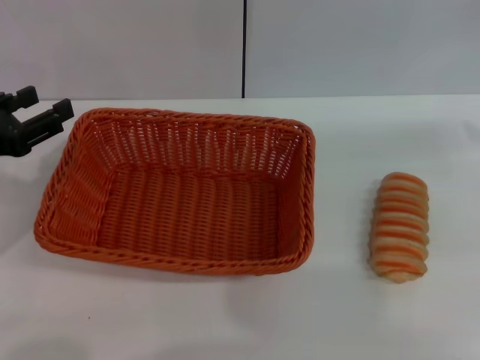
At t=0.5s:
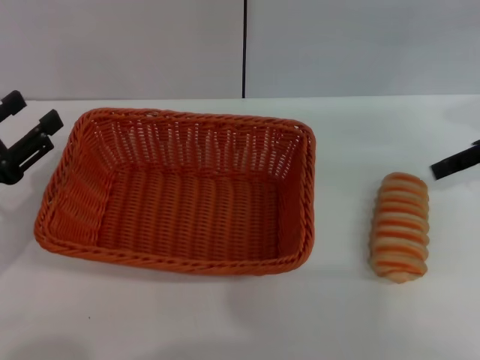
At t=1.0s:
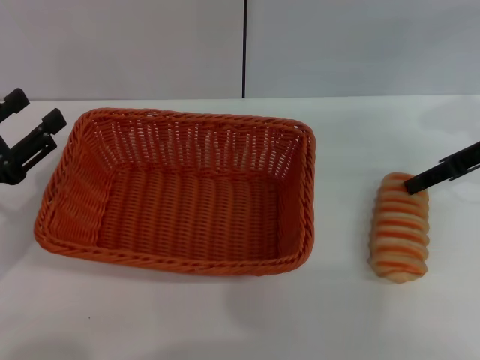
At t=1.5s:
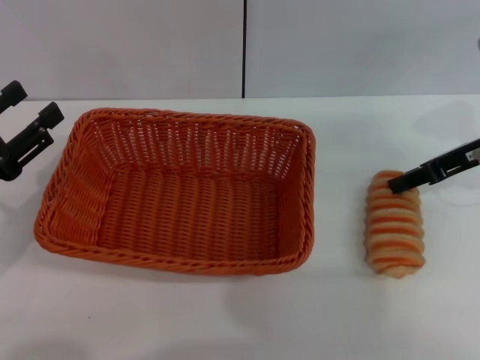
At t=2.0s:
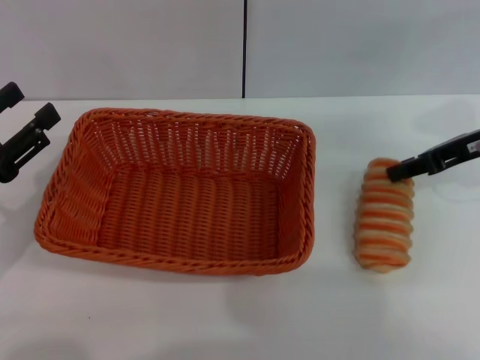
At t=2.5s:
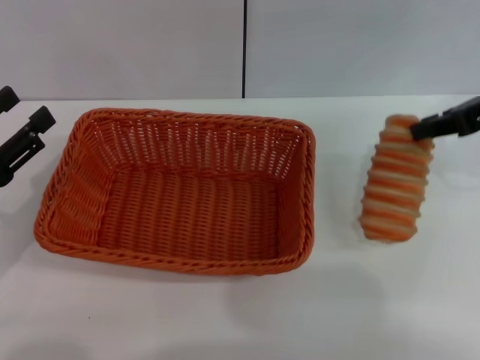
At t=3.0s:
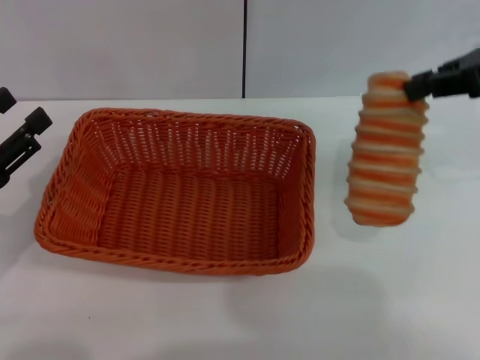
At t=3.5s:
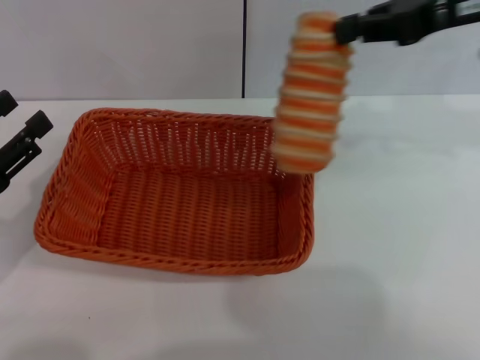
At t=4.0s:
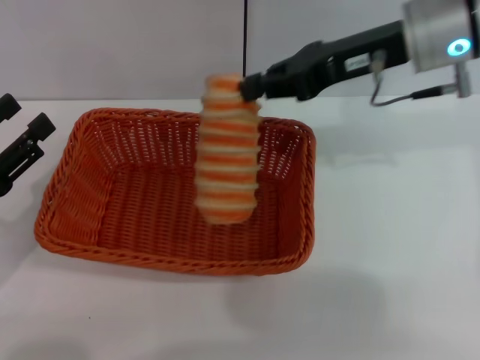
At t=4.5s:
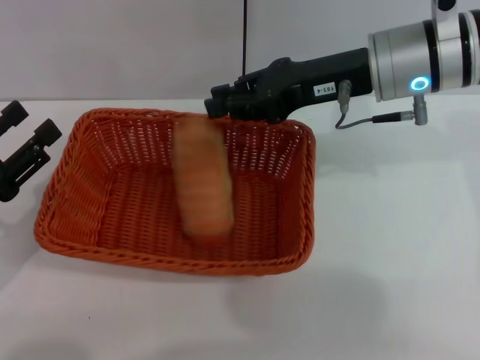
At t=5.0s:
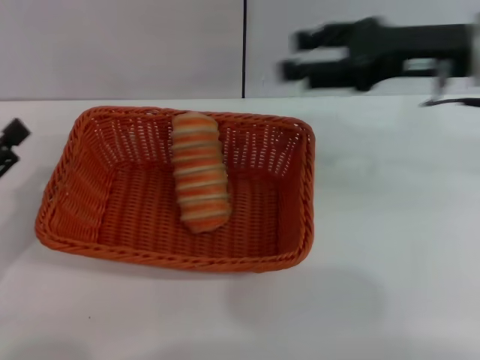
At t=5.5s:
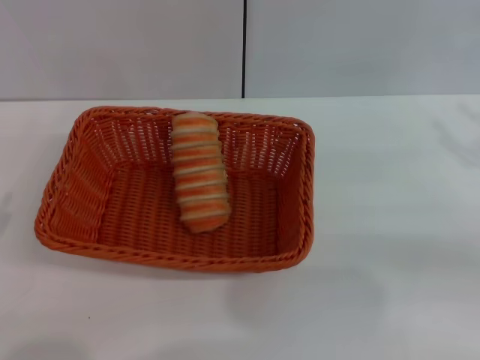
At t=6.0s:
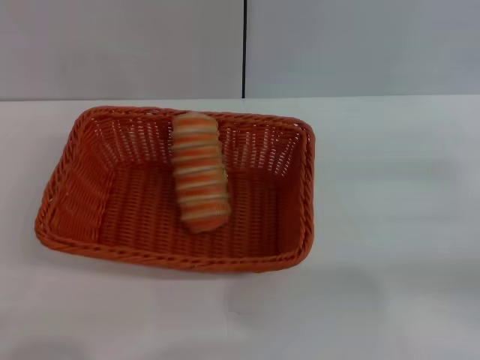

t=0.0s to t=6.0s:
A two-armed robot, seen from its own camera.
Step, t=0.0s to t=2.0s: Pick up the long bread with the right gripper.
Step, t=2.5s to t=4.5s: Place the long bread into the light basket with the right gripper.
t=0.0s to t=2.0s: The left gripper changes place by some 5 cm; the right gripper shifts roughly 10 cm to the left and downward, and closes its fingers.
t=2.0s to t=4.0s: The right gripper is displaced to the left and upward by roughly 15 cm, and closes up.
t=4.0s to t=6.0s: The left gripper travels backward by approximately 10 cm, while the right gripper moves to the right, backward and downward, roughly 30 cm, and opens.

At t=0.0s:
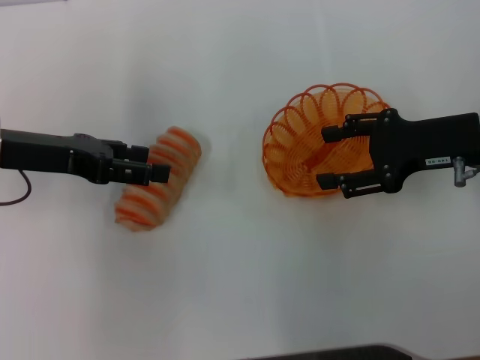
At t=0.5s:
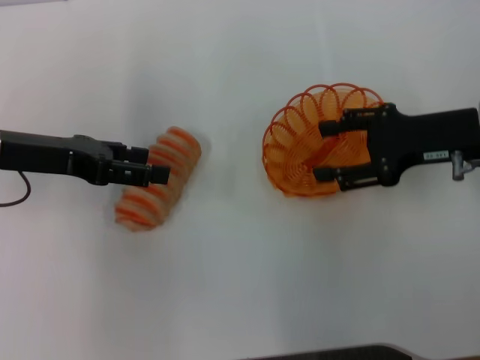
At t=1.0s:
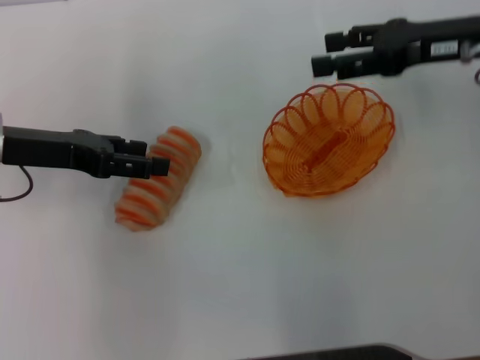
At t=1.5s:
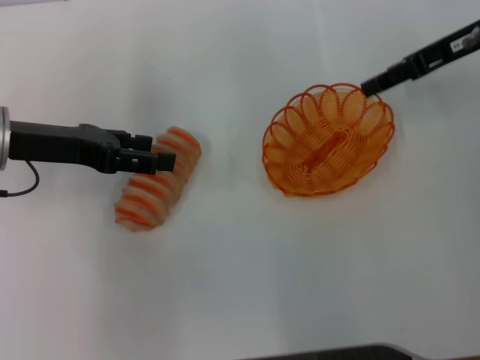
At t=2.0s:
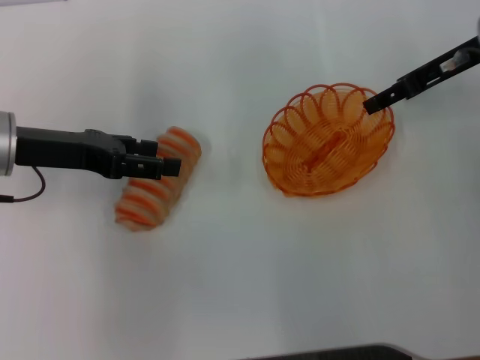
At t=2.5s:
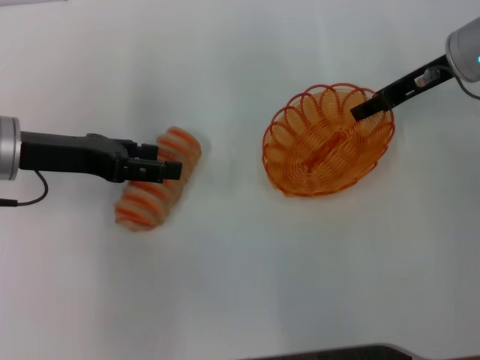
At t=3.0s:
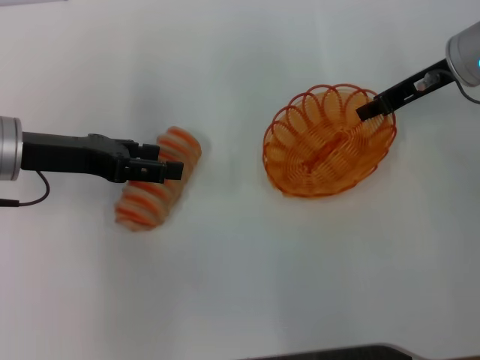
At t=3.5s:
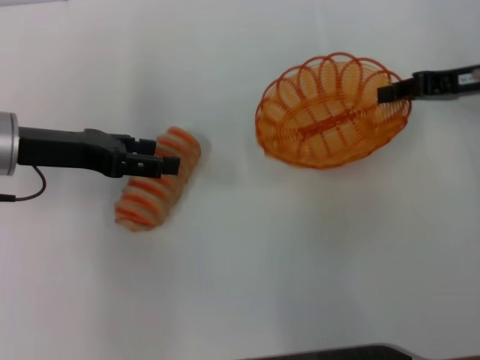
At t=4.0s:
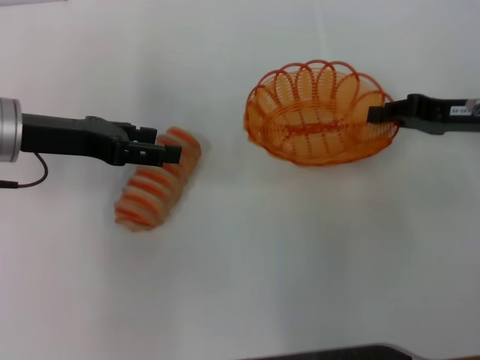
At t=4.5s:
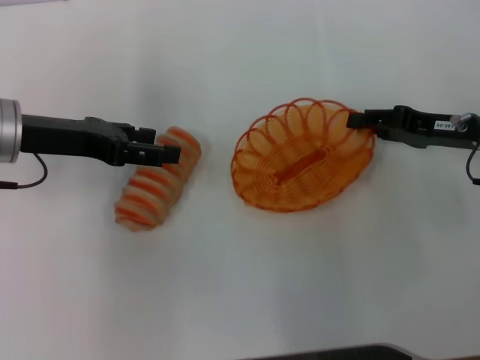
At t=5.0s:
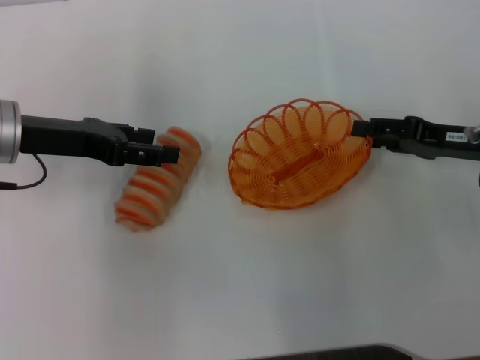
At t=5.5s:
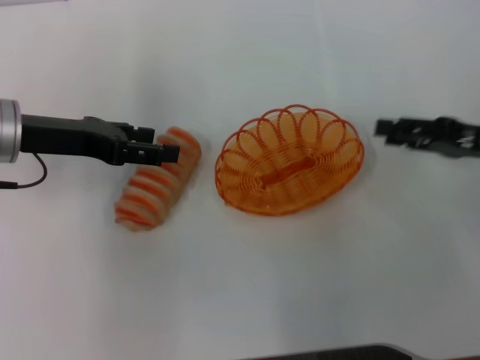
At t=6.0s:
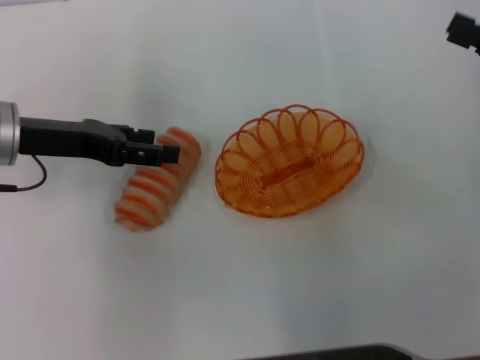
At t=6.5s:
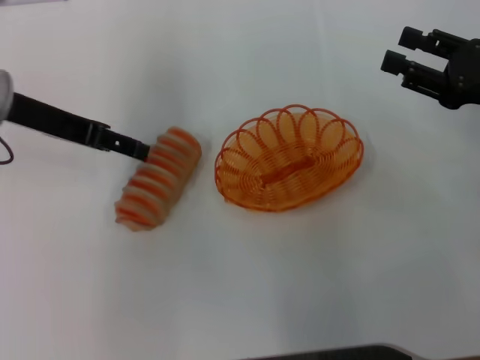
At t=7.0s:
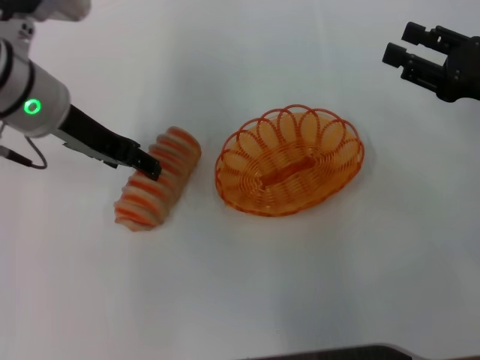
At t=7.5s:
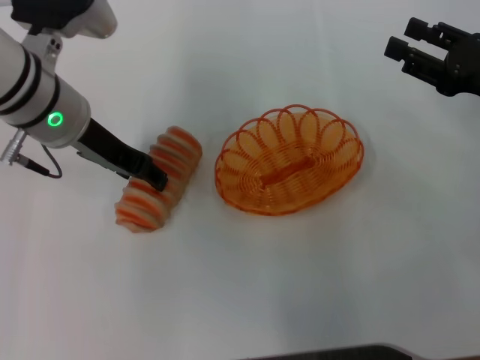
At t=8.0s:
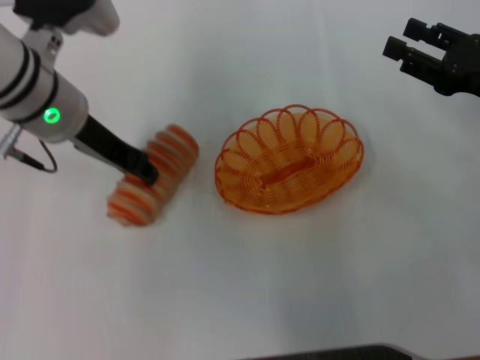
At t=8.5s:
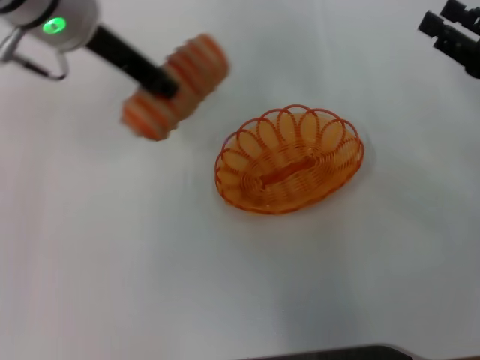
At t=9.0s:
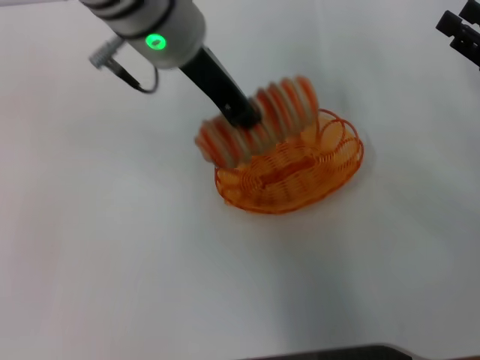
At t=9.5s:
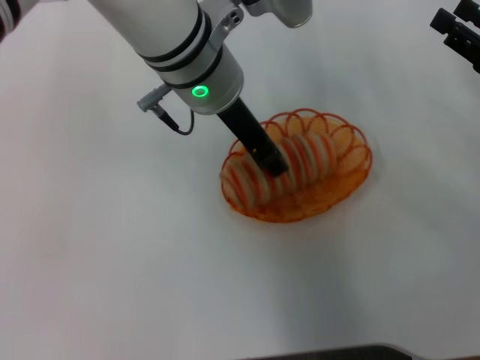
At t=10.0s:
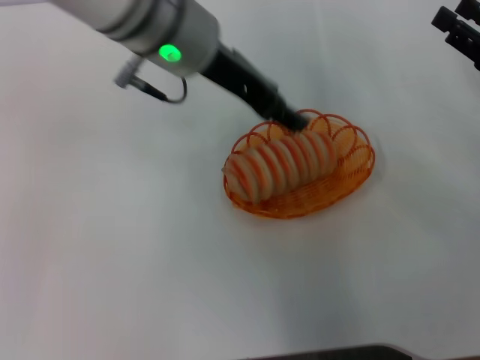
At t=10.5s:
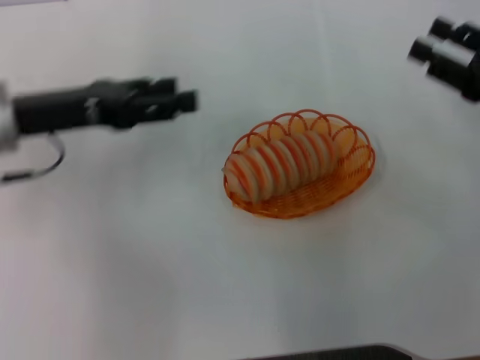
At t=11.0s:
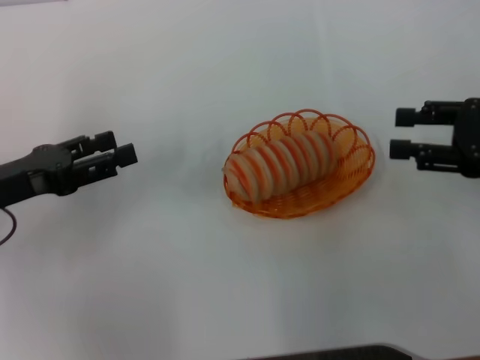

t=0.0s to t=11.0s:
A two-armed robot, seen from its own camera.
Step, t=0.0s to t=3.0s: Pick up the basket with the right gripper.
Step, t=3.5s to t=5.0s: Place the basket in the center of view with the right gripper.
Step, t=5.5s to t=8.0s: Pick up the long bread with the left gripper.
Step, t=8.5s to t=9.5s: Place the long bread into the basket with the left gripper.
t=0.0s to t=2.0s: The right gripper moves forward, some 10 cm.
t=2.0s to t=3.5s: The right gripper moves roughly 5 cm, and closes.
t=3.5s to t=5.5s: The right gripper heads backward, covering roughly 10 cm, and opens.
t=5.5s to t=7.5s: The left gripper shifts about 10 cm to the right.
t=7.5s to t=9.0s: The left gripper moves to the right and upward, approximately 15 cm, and closes.
t=9.0s to t=11.0s: The left gripper shifts approximately 30 cm to the left, downward and backward, and opens up.

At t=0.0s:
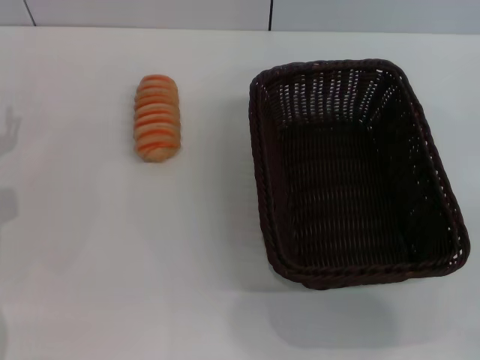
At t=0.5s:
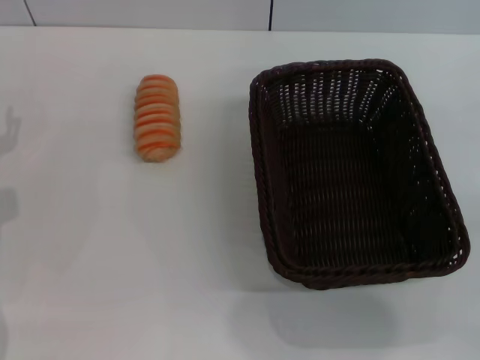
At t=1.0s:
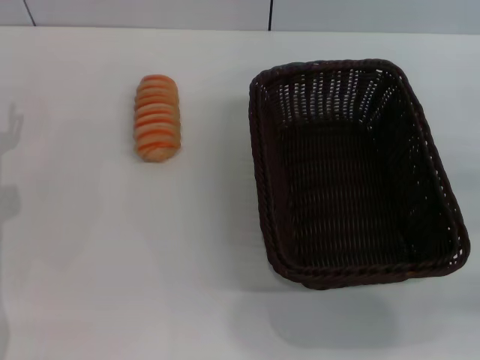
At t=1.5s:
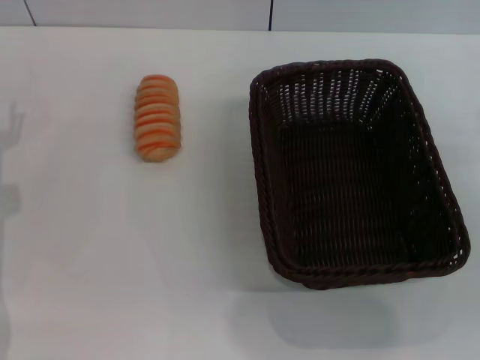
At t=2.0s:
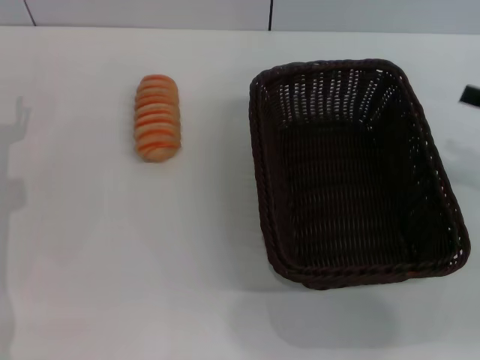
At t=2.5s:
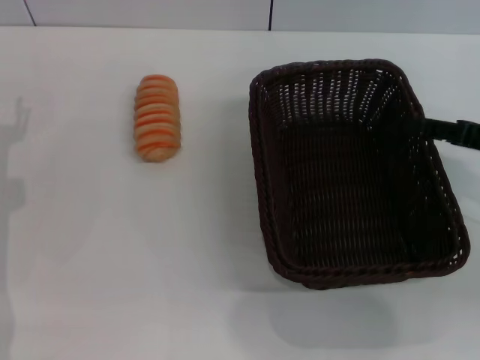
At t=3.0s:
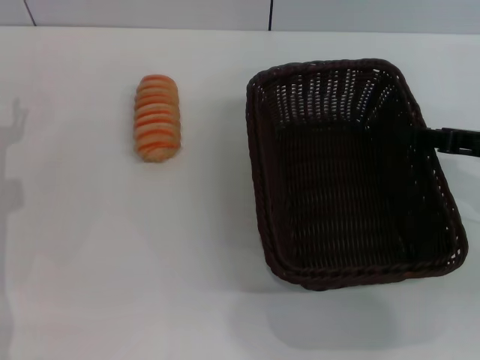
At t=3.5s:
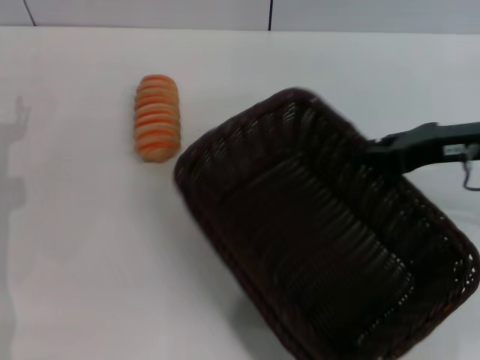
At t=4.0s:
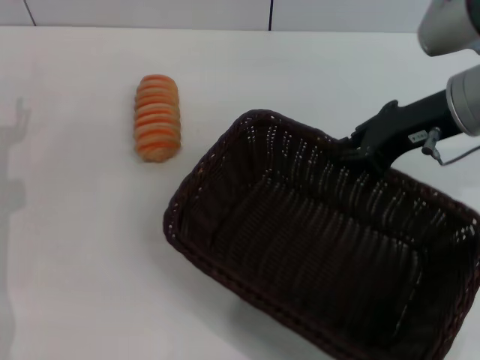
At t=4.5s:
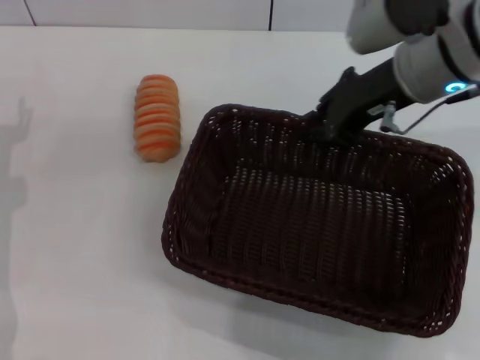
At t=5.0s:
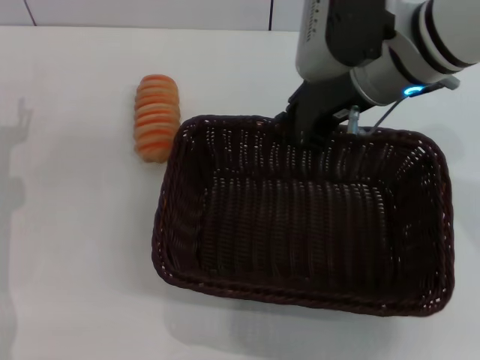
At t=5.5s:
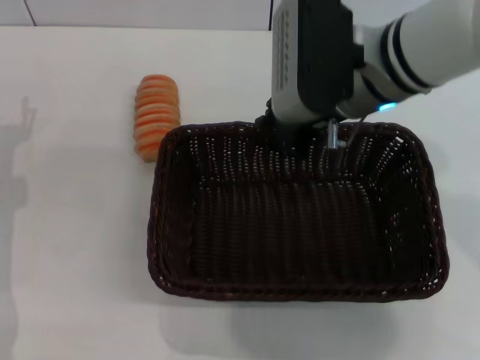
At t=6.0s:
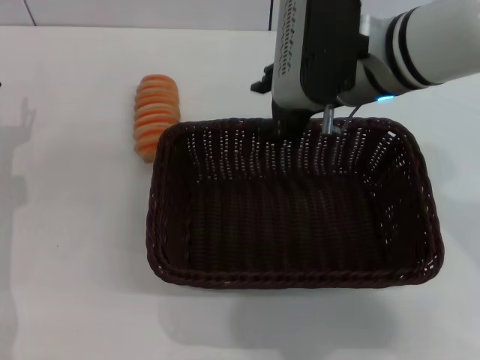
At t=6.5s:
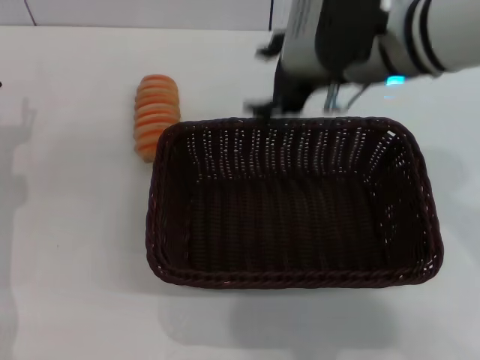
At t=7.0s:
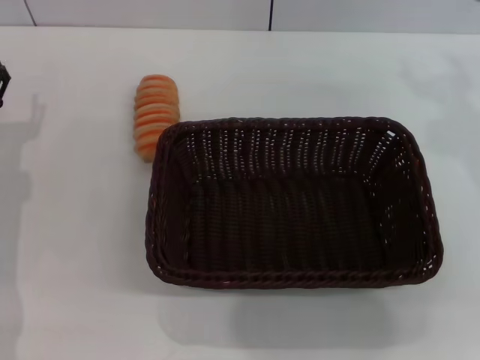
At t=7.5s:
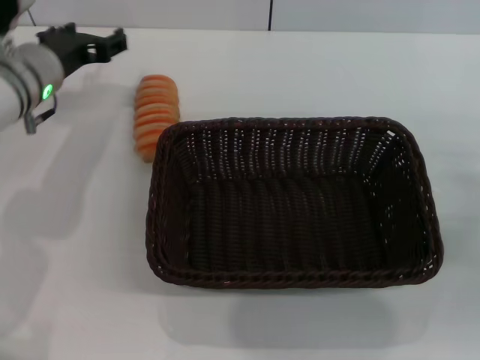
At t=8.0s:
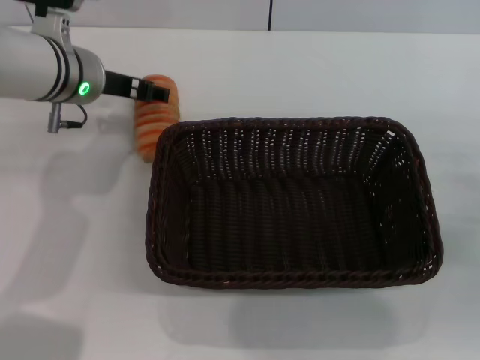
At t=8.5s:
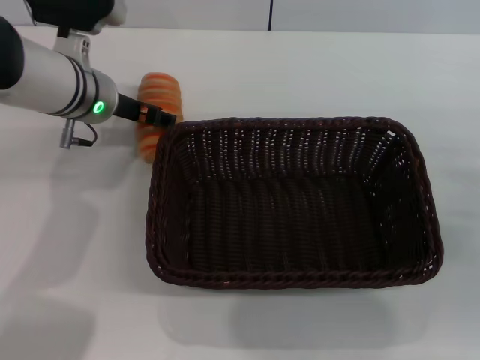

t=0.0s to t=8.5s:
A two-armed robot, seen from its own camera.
Step, t=0.0s to t=3.0s: Pick up the dark basket with the right gripper.
Step, t=3.5s to t=5.5s: Place the dark basket in the center of view with the right gripper.
t=2.0s to t=4.0s: The right gripper shifts approximately 15 cm to the left and forward, and closes.
t=4.0s to t=6.5s: The right gripper shifts about 10 cm to the left, and opens its fingers.
t=6.5s to t=8.5s: The right gripper heads to the right, backward and downward, covering about 30 cm. Meanwhile the left gripper goes some 20 cm to the right, forward and upward.
